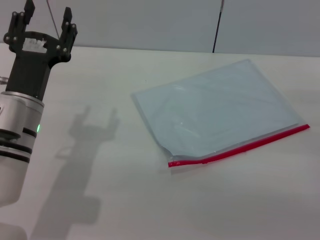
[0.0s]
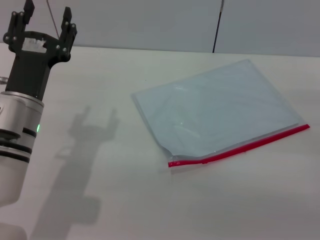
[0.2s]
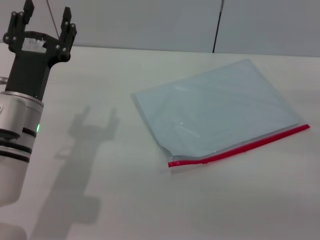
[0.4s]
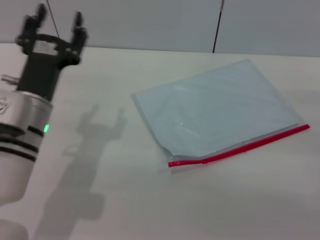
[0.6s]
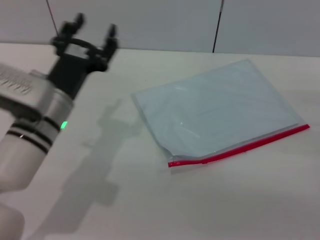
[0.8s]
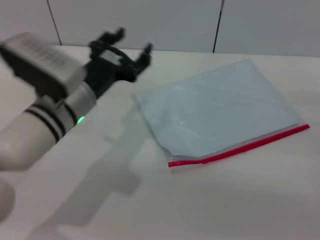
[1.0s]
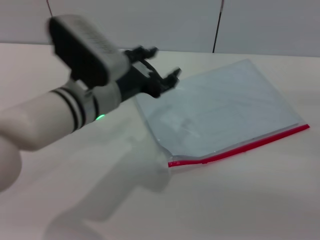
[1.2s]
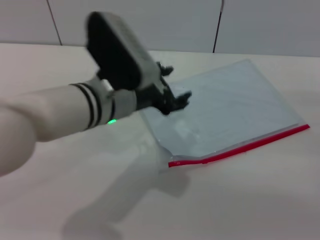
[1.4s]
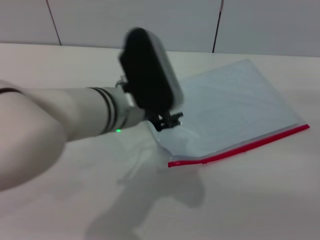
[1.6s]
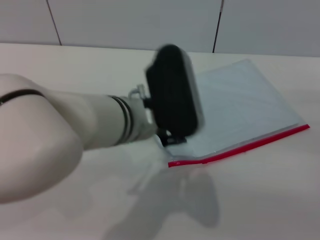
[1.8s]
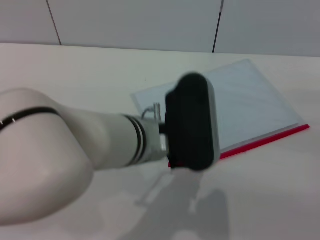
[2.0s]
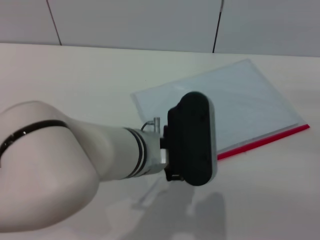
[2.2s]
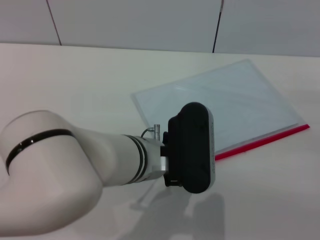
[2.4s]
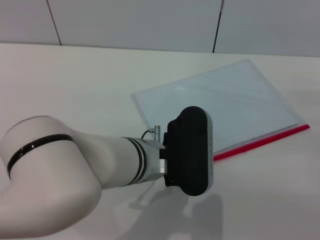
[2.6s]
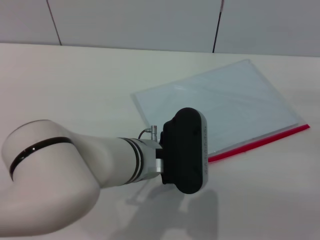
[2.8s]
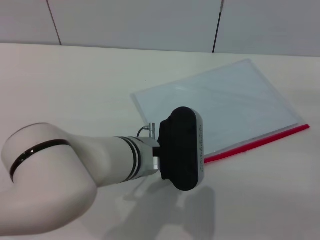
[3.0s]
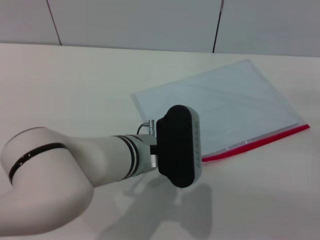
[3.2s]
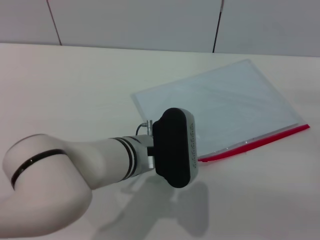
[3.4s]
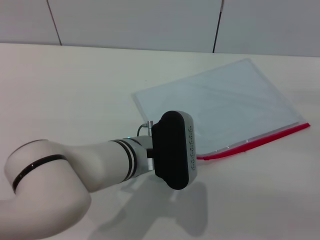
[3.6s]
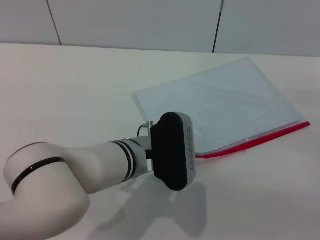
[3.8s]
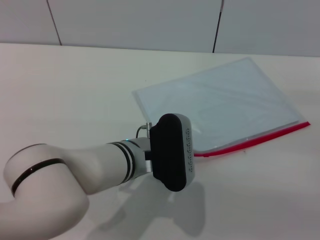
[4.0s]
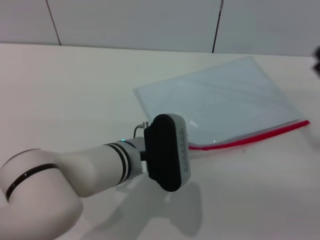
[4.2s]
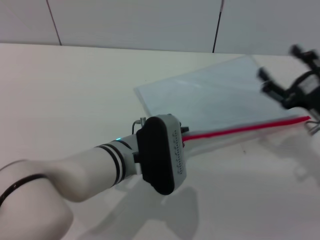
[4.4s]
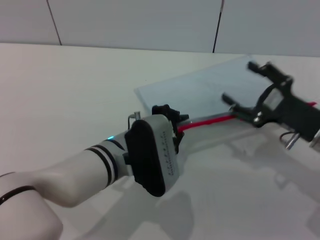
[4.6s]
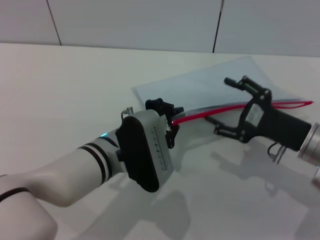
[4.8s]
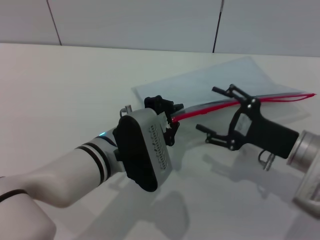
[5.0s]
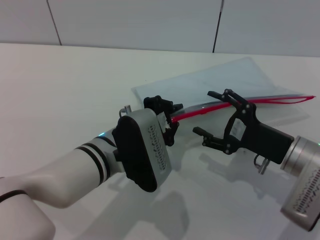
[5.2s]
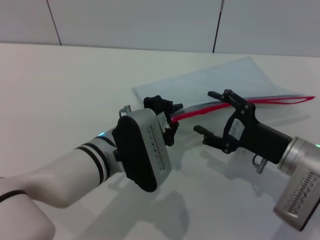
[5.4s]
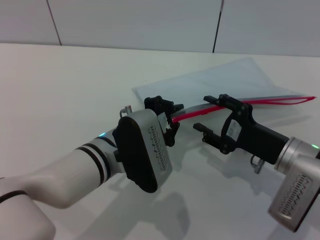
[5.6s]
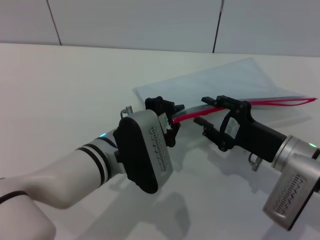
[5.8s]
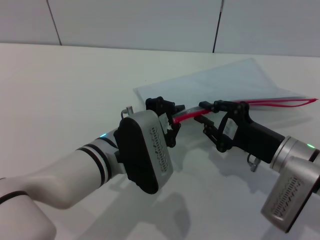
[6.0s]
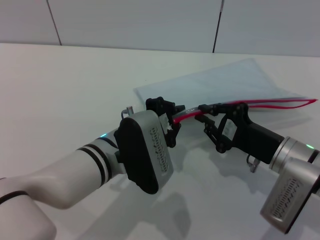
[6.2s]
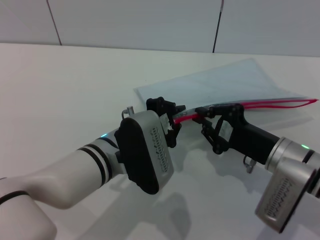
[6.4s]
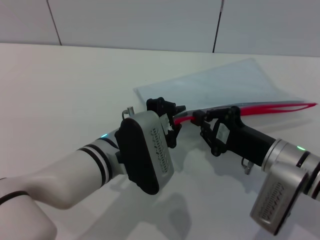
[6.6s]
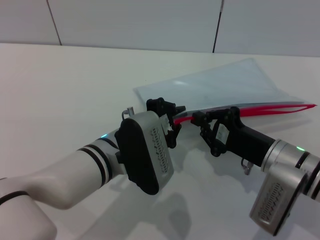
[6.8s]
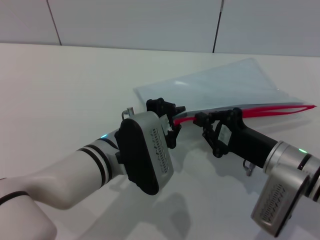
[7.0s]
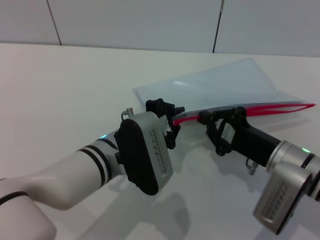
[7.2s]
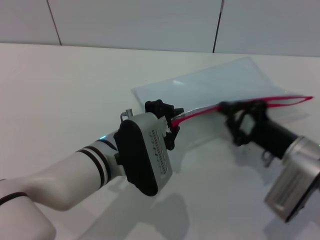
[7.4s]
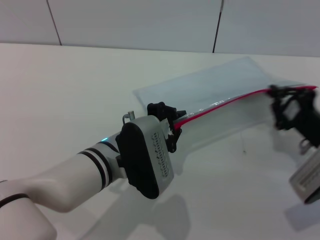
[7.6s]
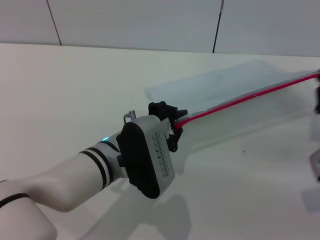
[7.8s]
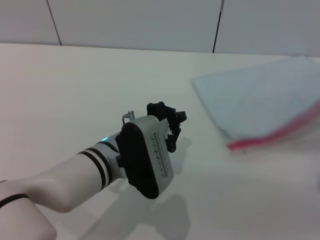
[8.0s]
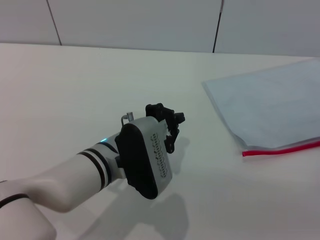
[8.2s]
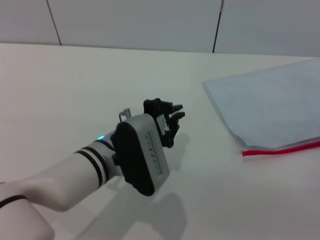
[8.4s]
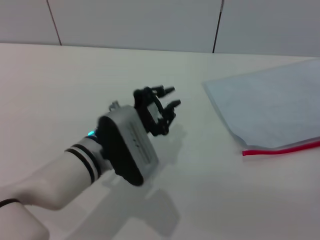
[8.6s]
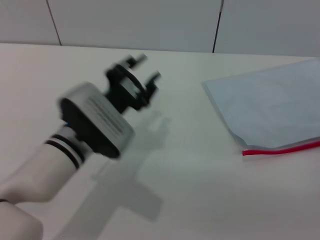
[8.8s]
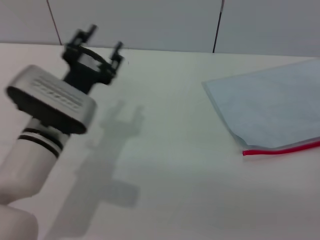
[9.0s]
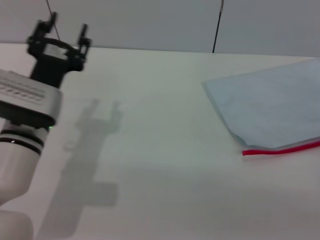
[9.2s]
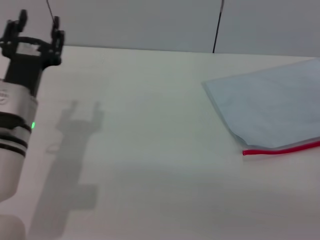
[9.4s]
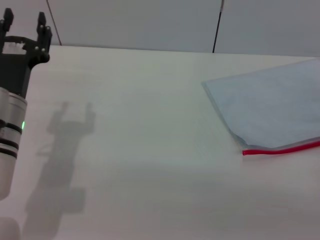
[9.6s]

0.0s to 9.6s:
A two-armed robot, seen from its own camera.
Step, 0.0s to 4.6s: Pick up the transparent plastic bag with the left gripper.
Step, 4.8s to 7.8s: Pulling up the zipper on the transparent plastic bag with the right gripper to close it.
Step, 8.0s to 8.6s: Place the transparent plastic bag.
0.0s to 1.6s: The left gripper is displaced to the right and upward by about 15 cm.
1.6s to 3.2s: The left gripper shifts approximately 5 cm downward.
3.2s to 4.8s: The left gripper closes its fingers; the right gripper is displaced to the left by roughly 10 cm.
4.8s to 6.4s: The right gripper changes place by about 5 cm, and closes its fingers.
6.4s to 8.0s: The right gripper is displaced to the right by about 15 cm.
8.0s to 9.6s: The left gripper goes roughly 15 cm to the left, and opens, while the right gripper opens its fingers.

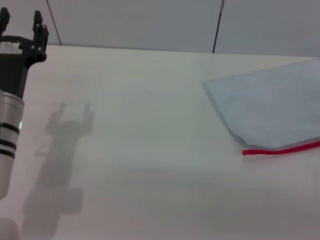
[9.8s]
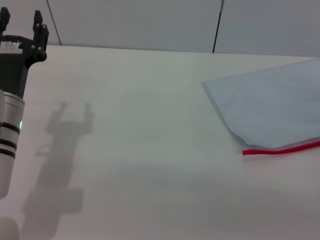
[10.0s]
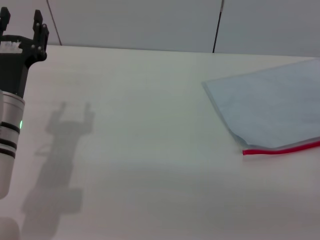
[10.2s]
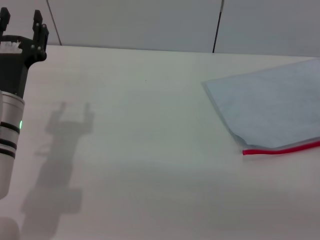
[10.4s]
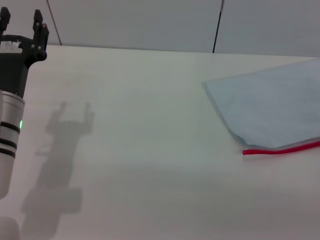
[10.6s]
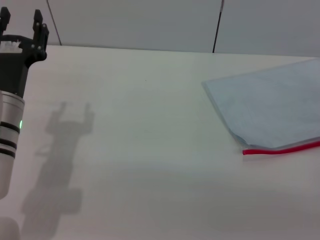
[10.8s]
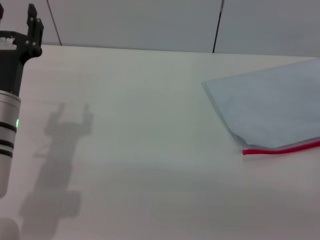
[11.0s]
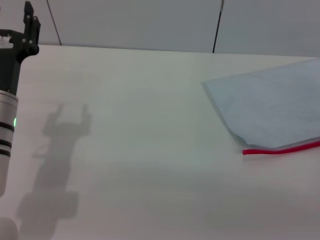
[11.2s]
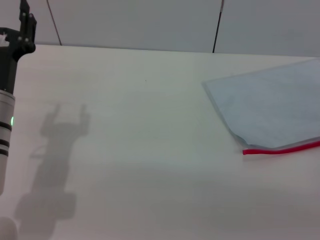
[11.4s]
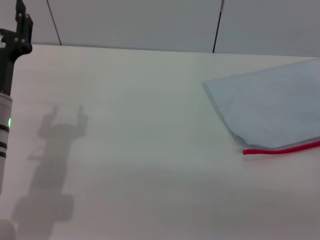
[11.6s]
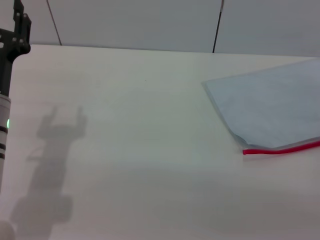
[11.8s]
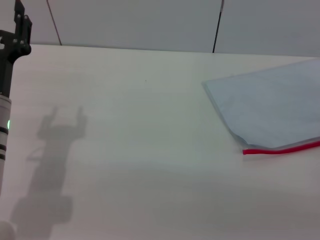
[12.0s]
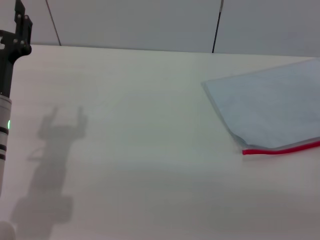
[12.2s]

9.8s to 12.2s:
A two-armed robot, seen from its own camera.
9.8s to 11.0s: Both grippers stay put.
11.0s to 12.2s: Both grippers stay put.
